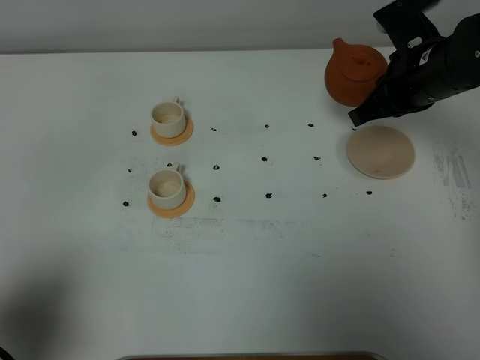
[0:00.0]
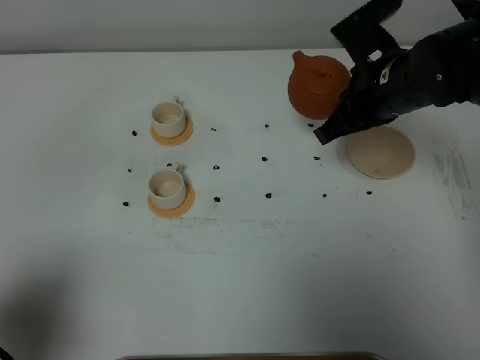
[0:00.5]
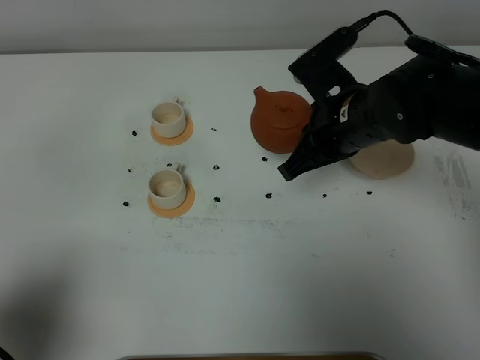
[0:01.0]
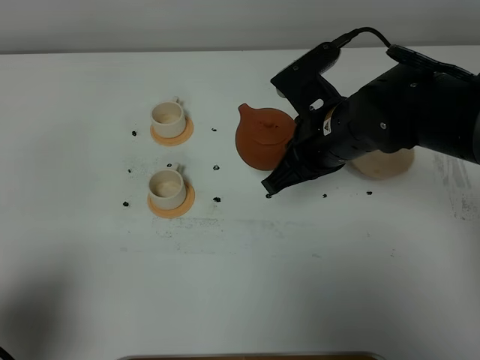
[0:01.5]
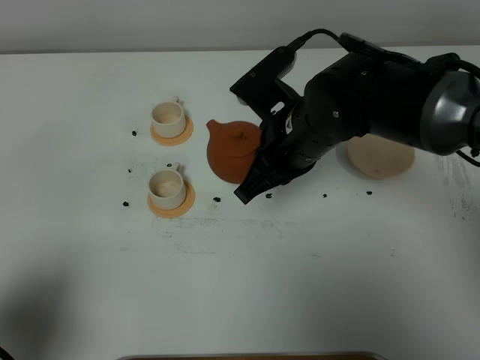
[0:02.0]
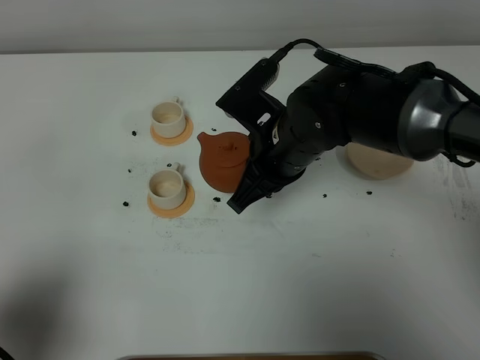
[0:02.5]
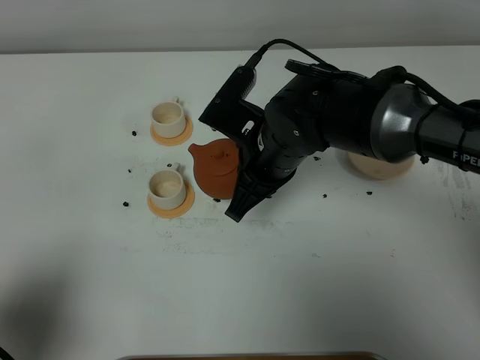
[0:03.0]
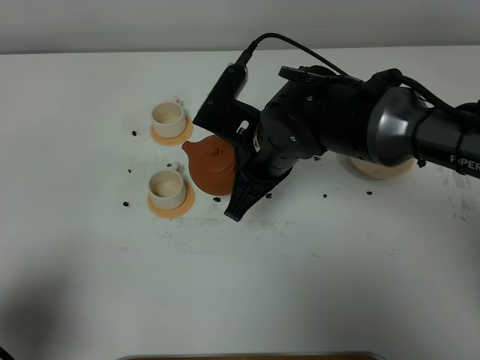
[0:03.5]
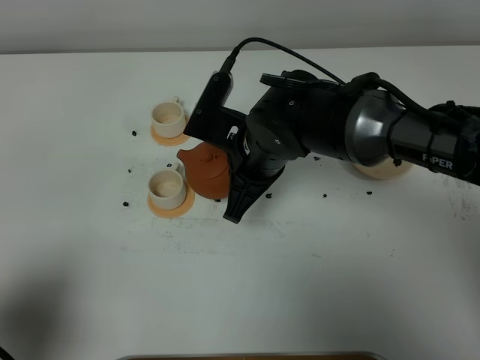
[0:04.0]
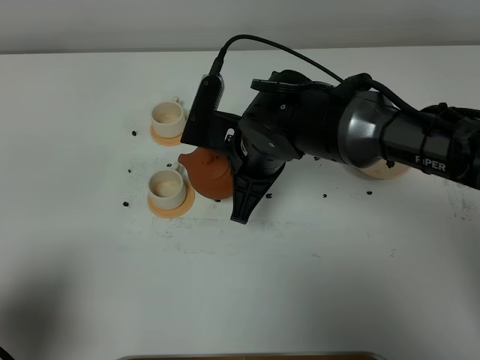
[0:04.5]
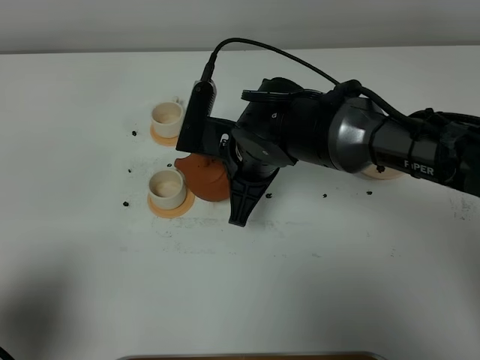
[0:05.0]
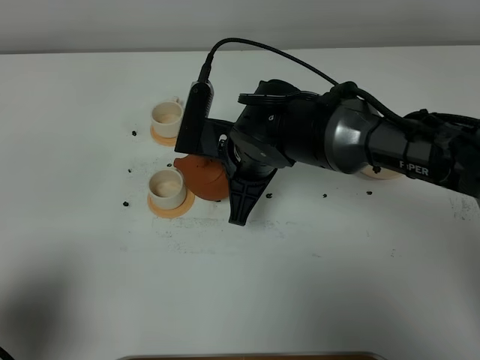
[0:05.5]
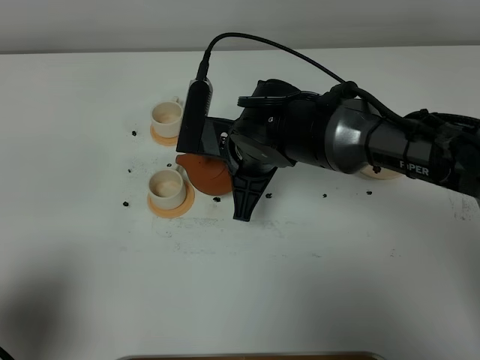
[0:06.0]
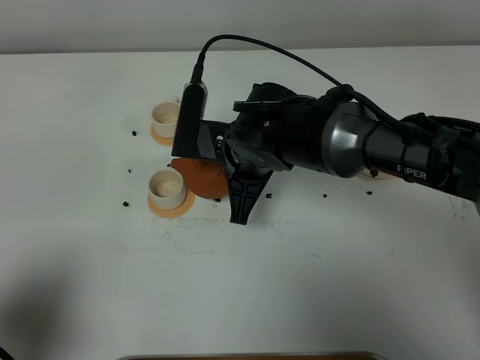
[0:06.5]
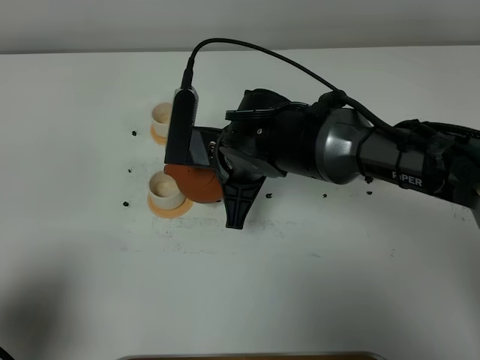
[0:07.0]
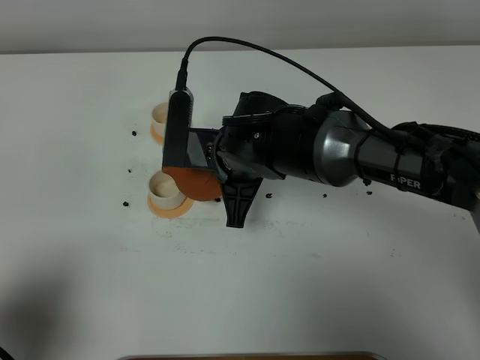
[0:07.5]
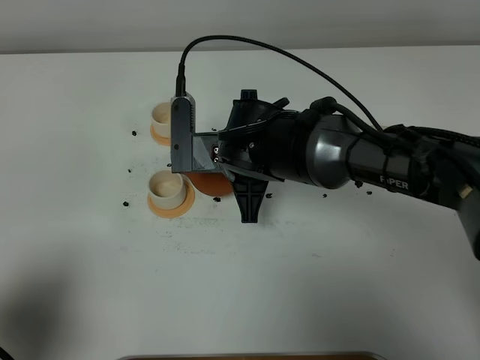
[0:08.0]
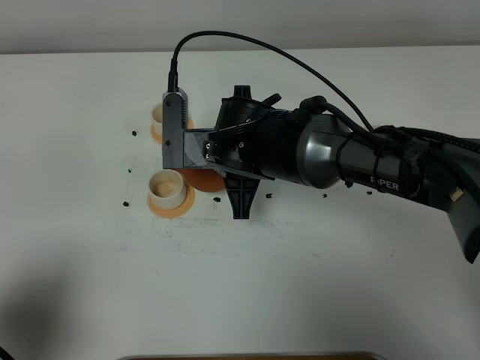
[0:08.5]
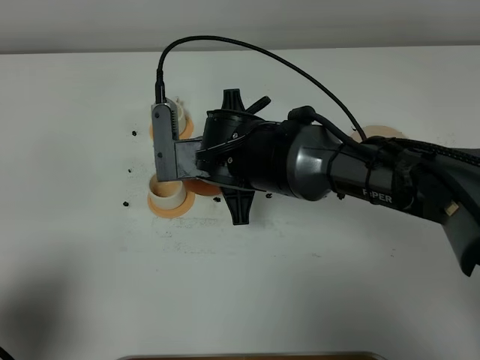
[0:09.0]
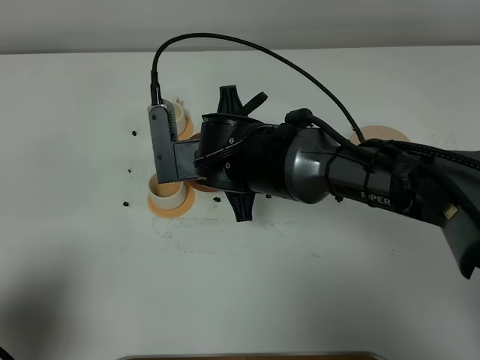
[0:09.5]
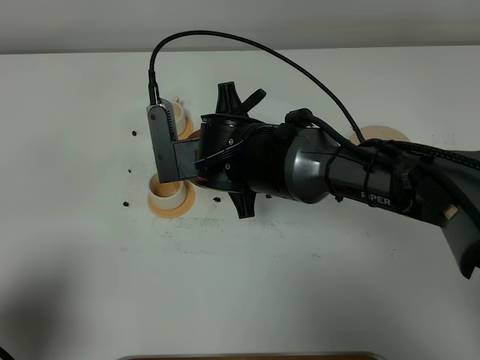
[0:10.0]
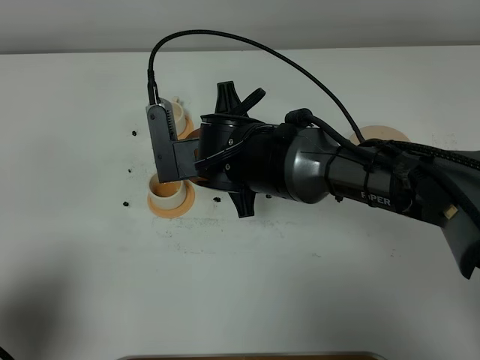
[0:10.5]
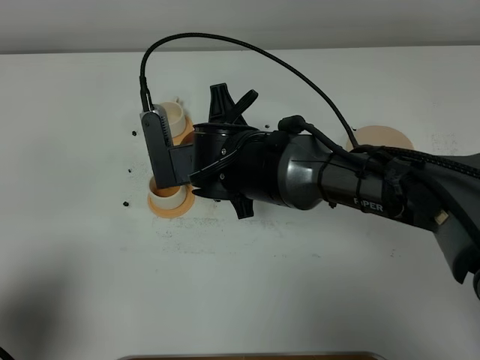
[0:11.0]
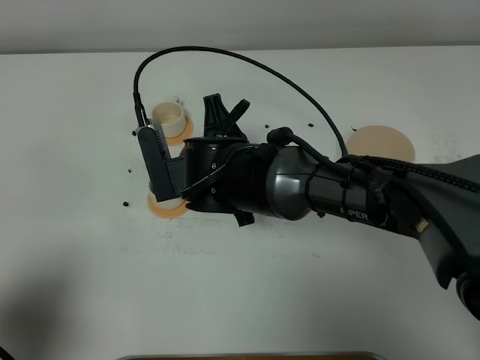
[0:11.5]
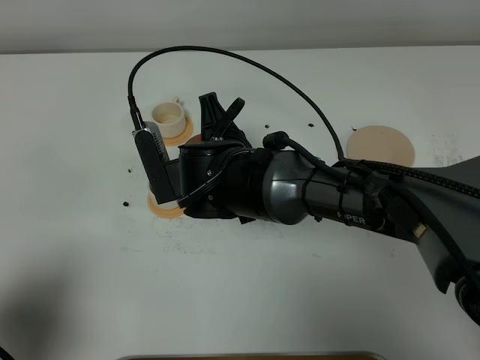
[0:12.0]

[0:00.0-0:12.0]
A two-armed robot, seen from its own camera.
Task of the whole recording: grasp the brown teapot and pour the tea into the two white teacups one by one, put the brown teapot back in its original place.
0:00.0 to 0:02.0: The right gripper heads to the left, covering about 15 cm.
0:04.0 to 0:06.0: There are only small adjustments of the grippers.
0:06.0 to 0:08.0: There are only small adjustments of the grippers.
0:08.0 to 0:10.0: There are only small adjustments of the grippers.
0:10.0 to 0:12.0: The grippers make only small movements.

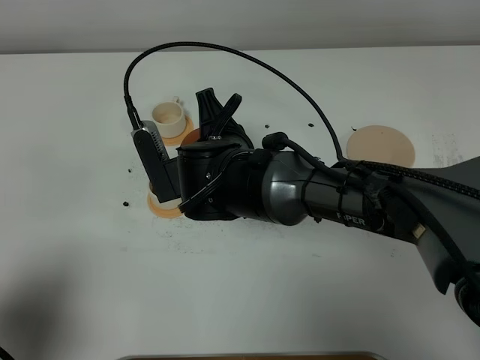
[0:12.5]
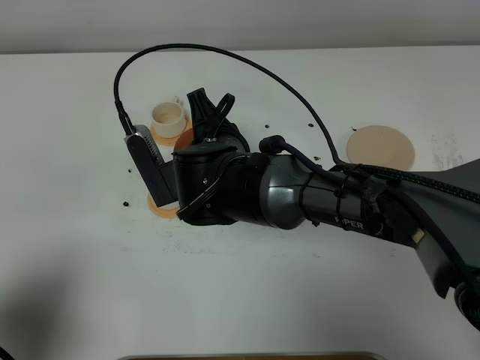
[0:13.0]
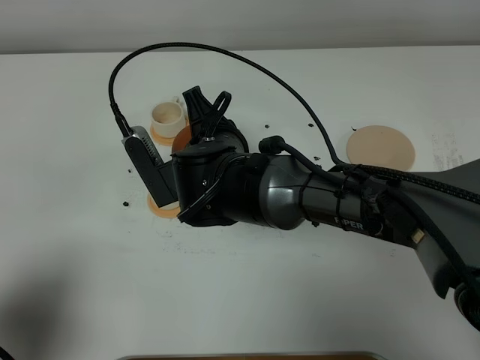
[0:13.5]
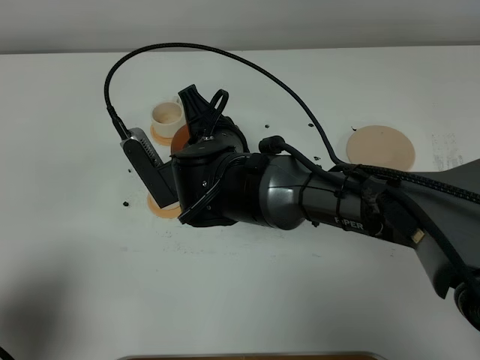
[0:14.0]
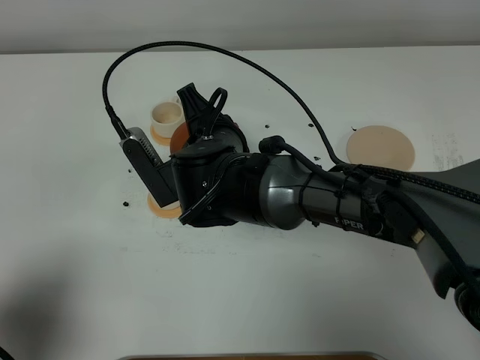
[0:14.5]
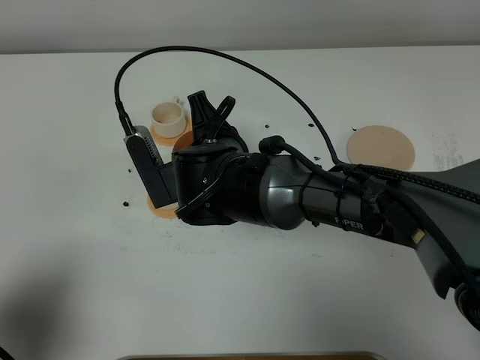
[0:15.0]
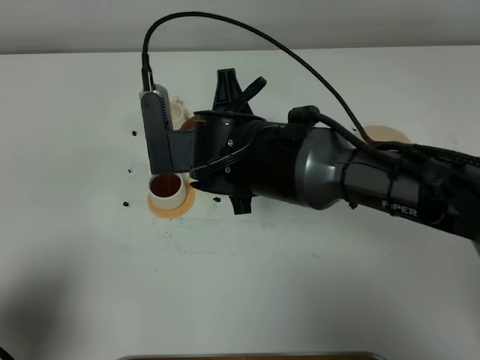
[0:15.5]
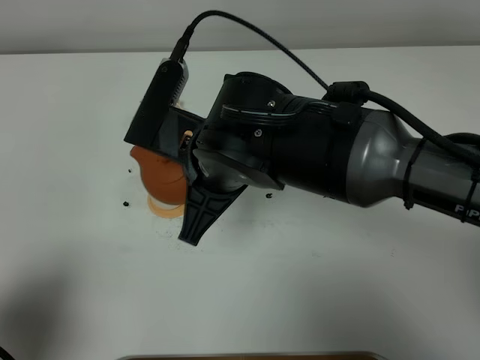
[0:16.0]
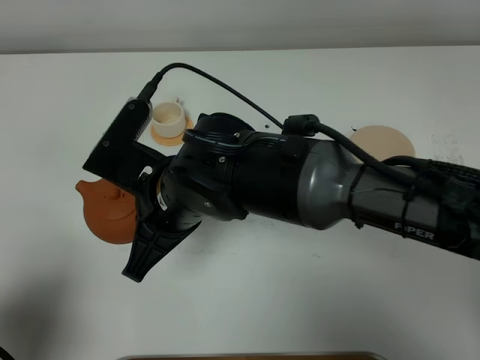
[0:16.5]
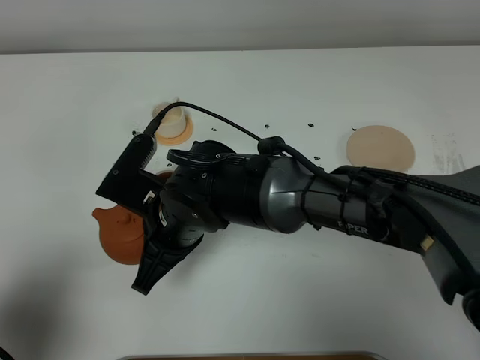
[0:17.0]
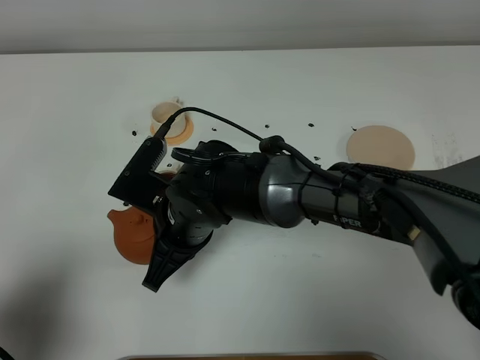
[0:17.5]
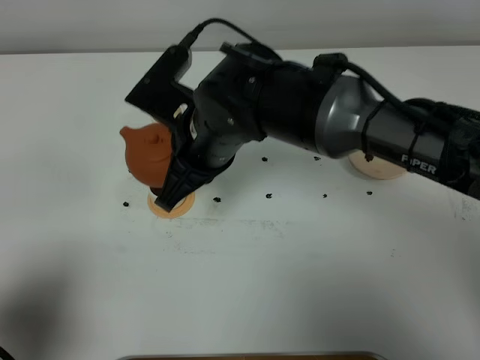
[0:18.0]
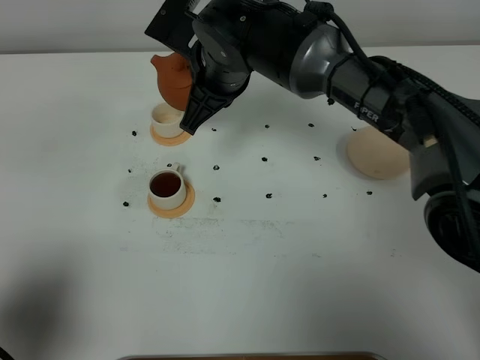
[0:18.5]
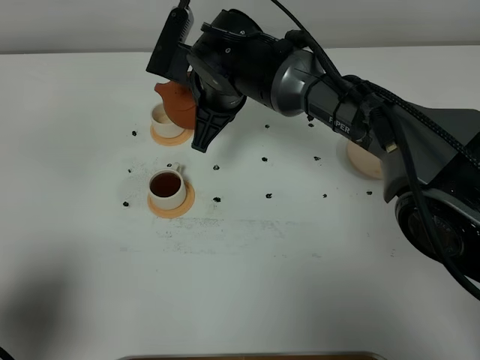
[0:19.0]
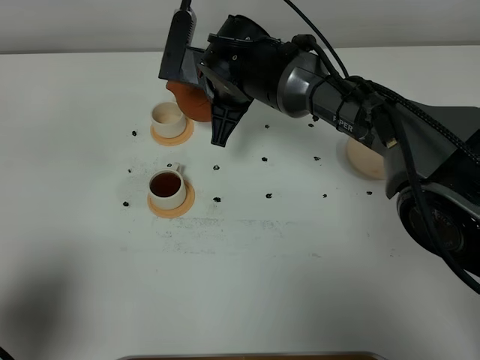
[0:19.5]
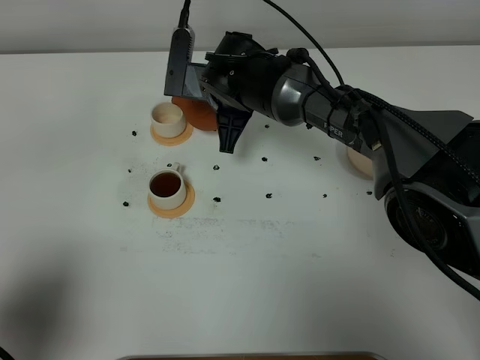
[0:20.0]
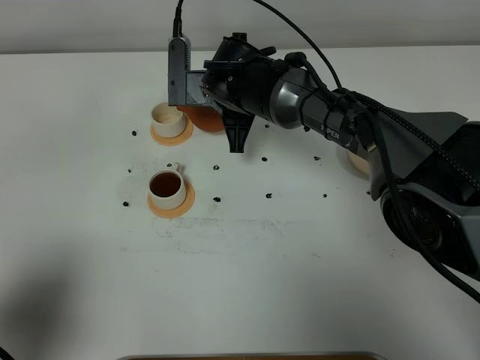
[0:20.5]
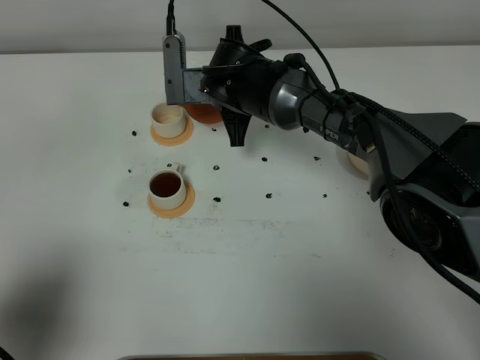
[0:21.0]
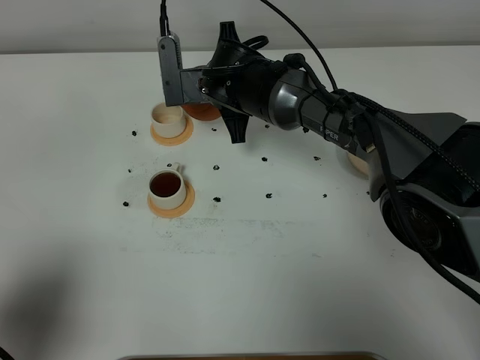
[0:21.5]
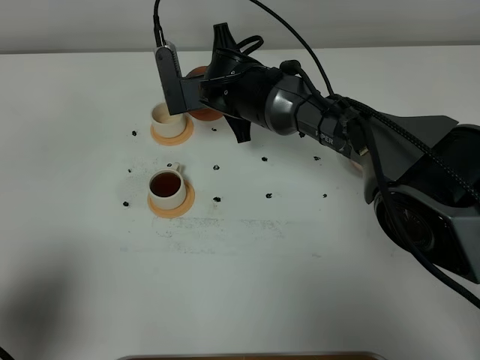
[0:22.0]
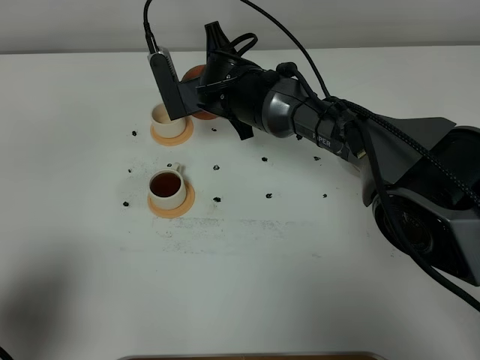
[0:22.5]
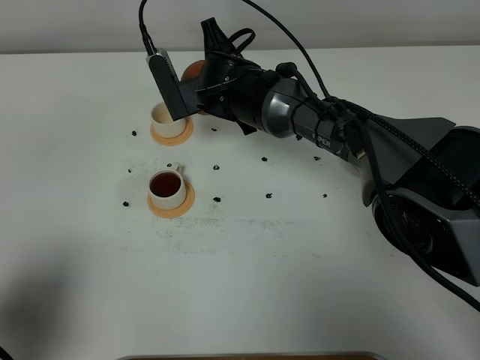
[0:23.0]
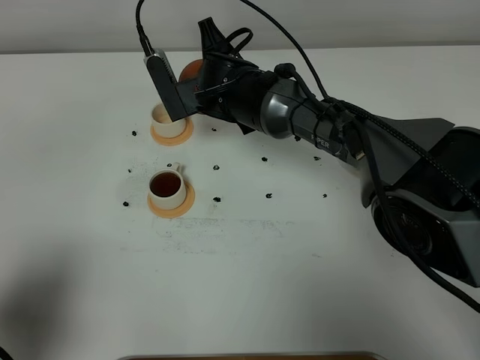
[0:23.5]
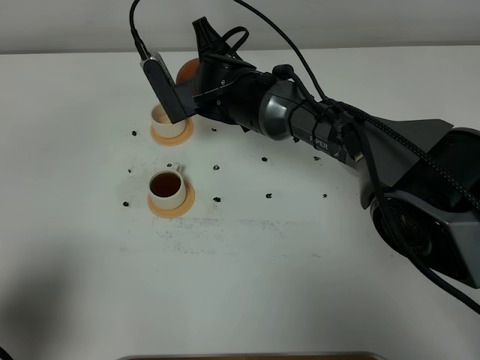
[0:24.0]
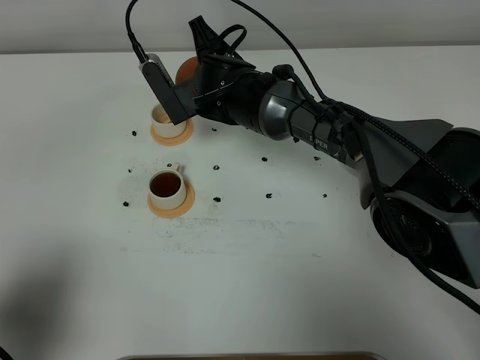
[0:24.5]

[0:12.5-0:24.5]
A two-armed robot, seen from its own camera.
Task of the whole recording: grasp the brown teapot and pour the tea into the two white teacups one by one, put the brown teapot back in its original place.
Step, 0:12.5 to 0:15.0: Pour tea into the teacup with the right gripper.
0:12.5 to 0:14.5: The grippers stay close to where they were, moving slightly.
0:14.5 to 0:16.5: The right gripper moves backward, about 5 cm.
0:16.5 to 0:18.5: The right gripper is displaced forward by roughly 15 cm.
0:18.5 to 0:20.5: The right gripper goes approximately 10 cm downward.
0:22.5 to 0:24.5: There are only small adjustments of the grippers.

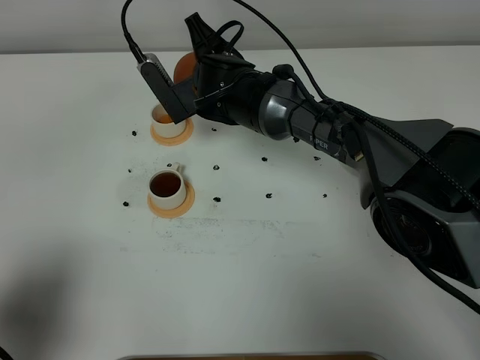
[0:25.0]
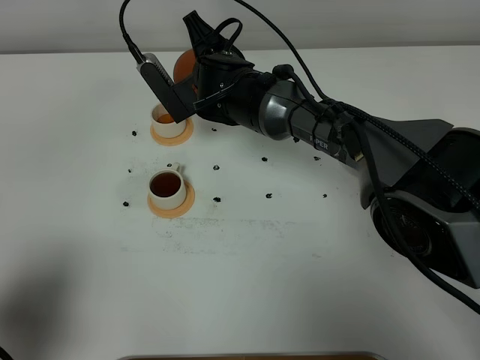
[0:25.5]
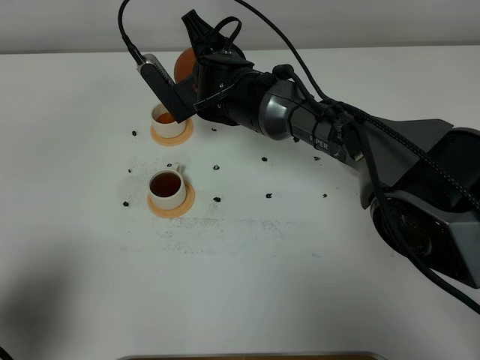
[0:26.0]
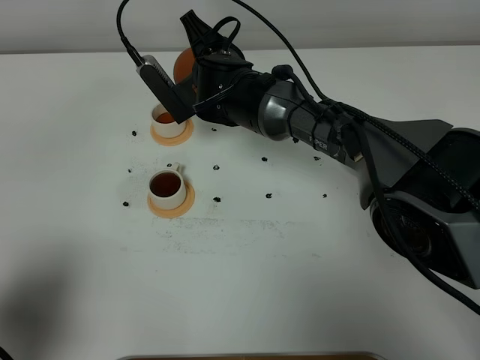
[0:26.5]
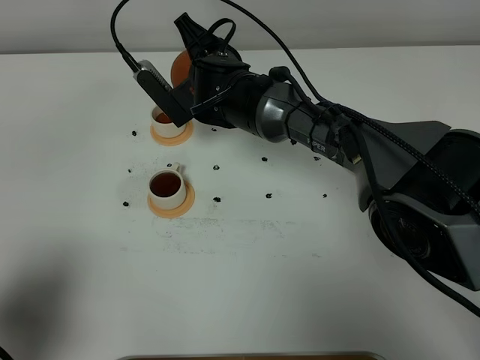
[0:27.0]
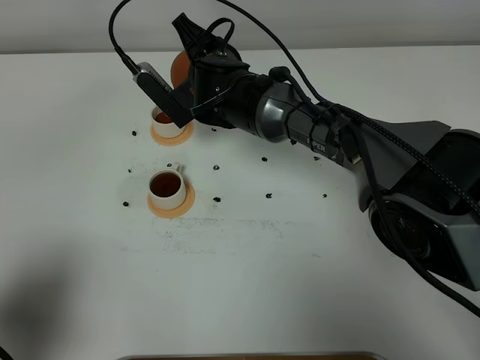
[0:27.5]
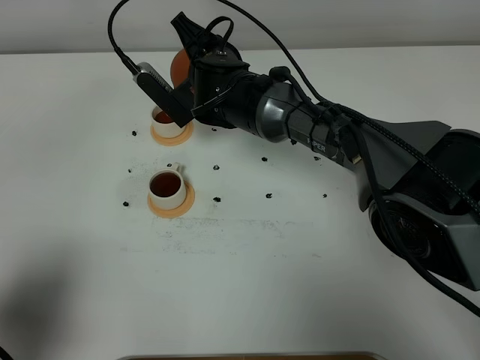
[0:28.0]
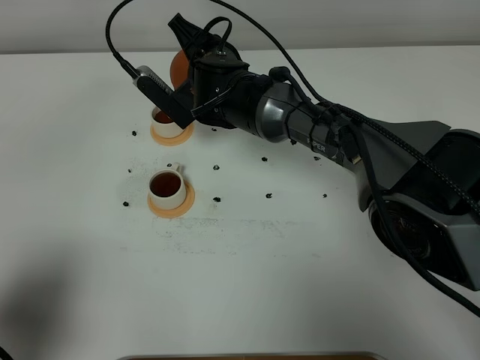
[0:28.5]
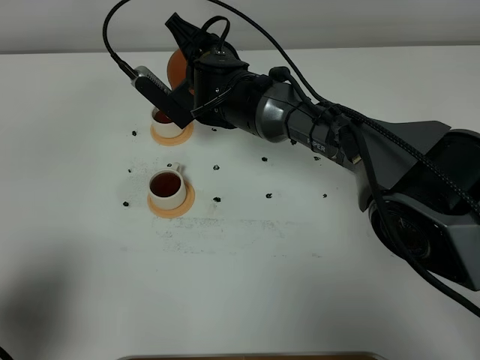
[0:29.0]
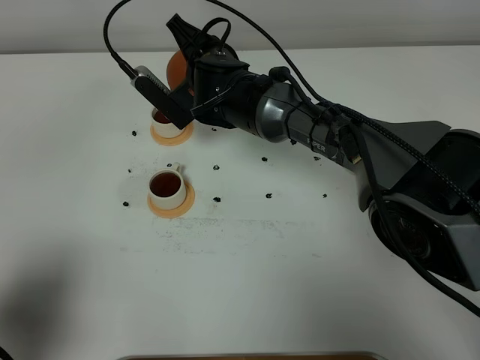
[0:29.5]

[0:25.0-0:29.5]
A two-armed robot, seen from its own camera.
Task of the whole recording: grasp the brown teapot and pour the tea into the two white teacups one by one, put the brown teapot back in its original place.
Step, 0:25.0 to 0:28.5: Pour tea into the teacup with the right gripper.
0:25.0 to 0:29.5: The grippers make only small movements.
